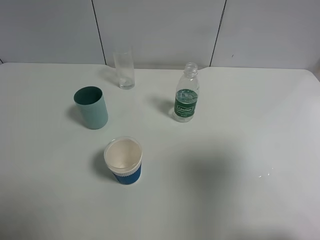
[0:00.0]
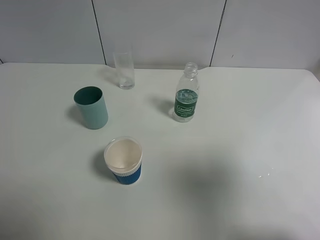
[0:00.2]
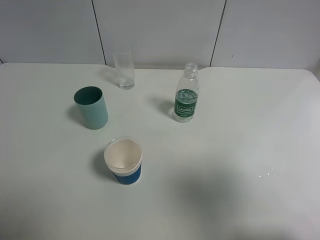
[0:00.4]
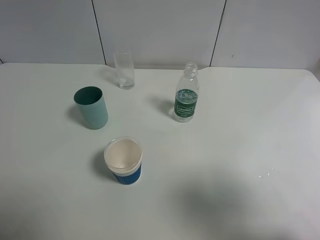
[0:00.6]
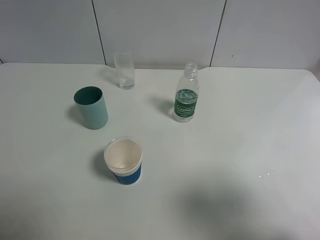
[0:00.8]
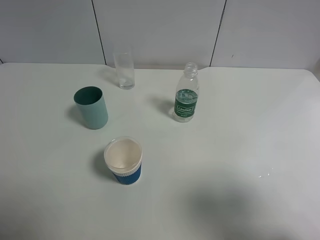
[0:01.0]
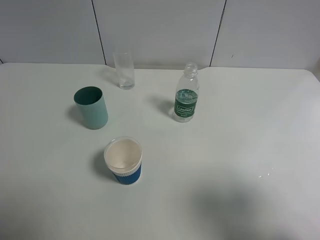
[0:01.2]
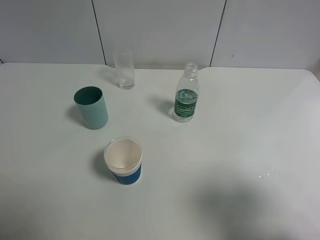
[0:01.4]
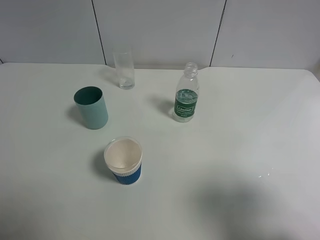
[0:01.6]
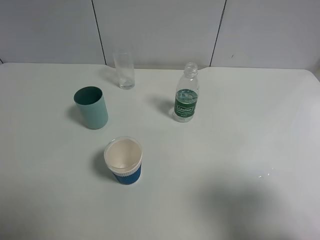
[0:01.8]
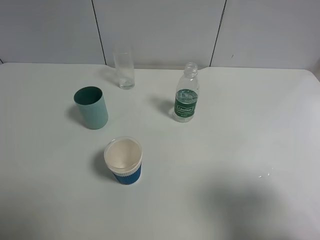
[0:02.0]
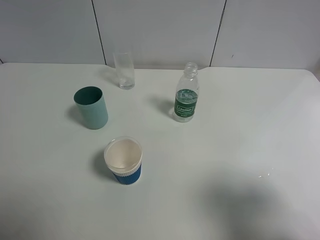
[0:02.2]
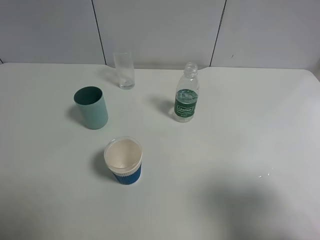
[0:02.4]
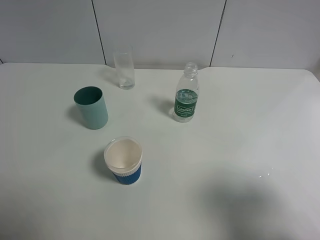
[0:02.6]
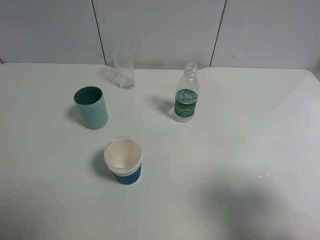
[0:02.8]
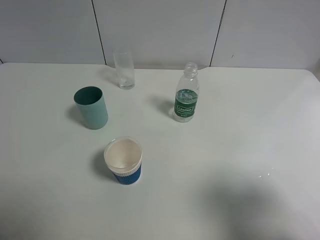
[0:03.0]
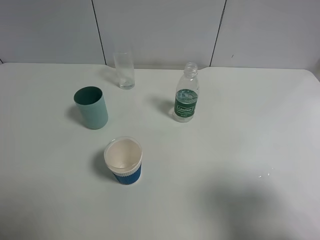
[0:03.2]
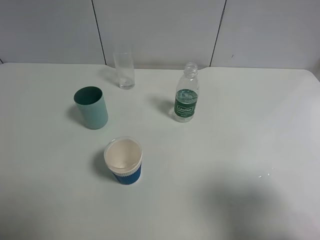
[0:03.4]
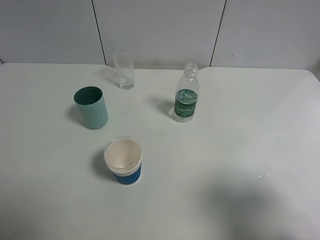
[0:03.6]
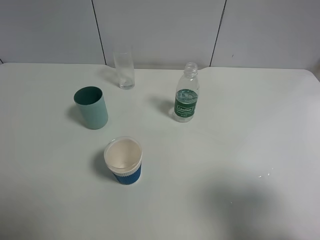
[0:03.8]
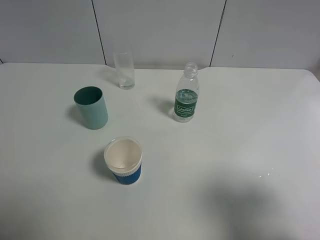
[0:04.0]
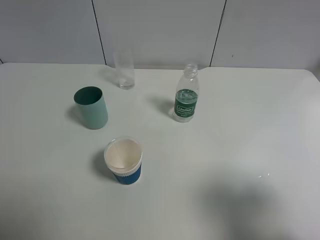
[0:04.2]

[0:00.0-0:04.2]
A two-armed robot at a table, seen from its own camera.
Task of the whole recording: use a gripper to hold the bottle of the drink and pour it into a random cup.
0:00.0 to 0:01.4: The right gripper is displaced downward by some 5 cm.
0:02.8 to 0:04.2: The two grippers keep their place.
